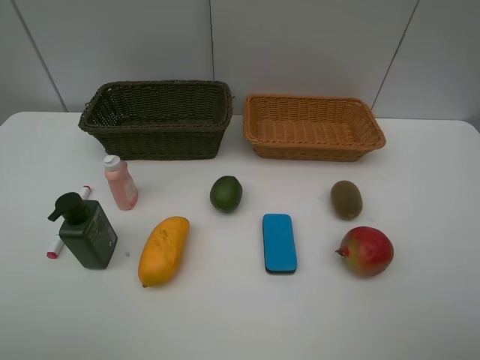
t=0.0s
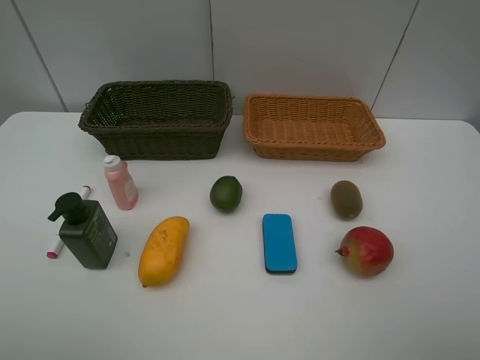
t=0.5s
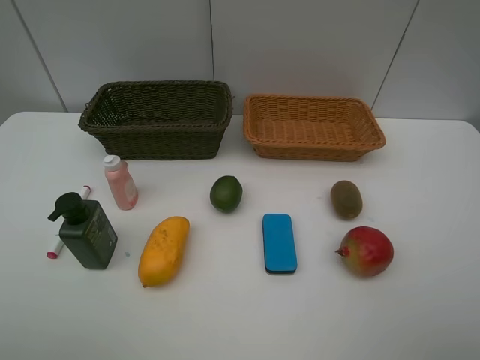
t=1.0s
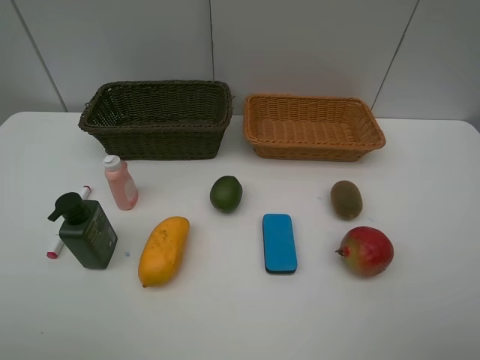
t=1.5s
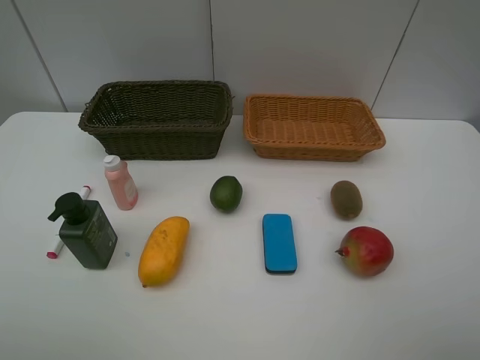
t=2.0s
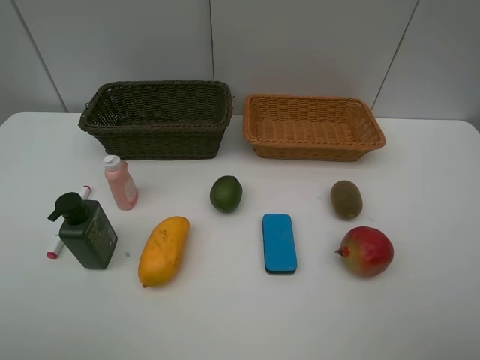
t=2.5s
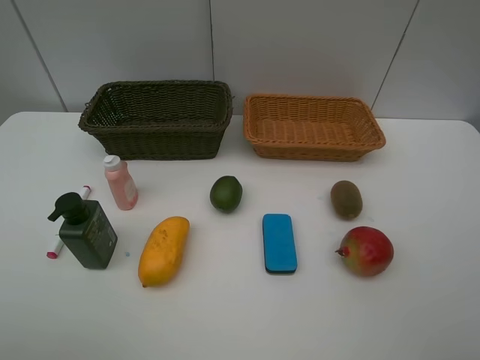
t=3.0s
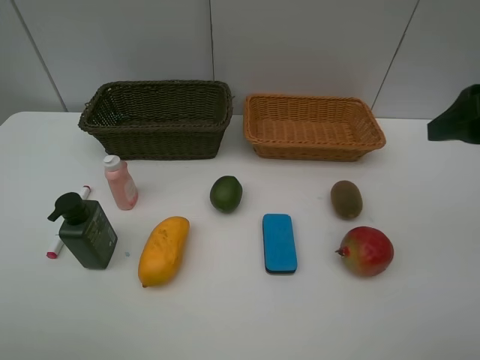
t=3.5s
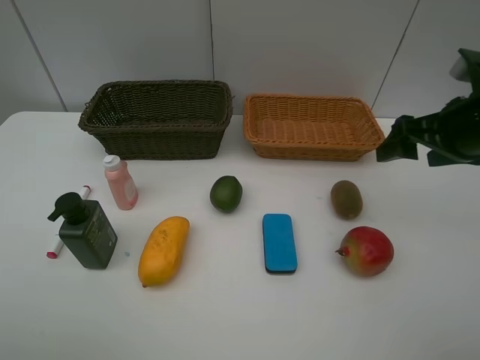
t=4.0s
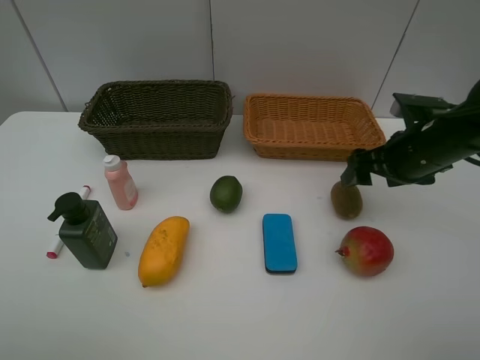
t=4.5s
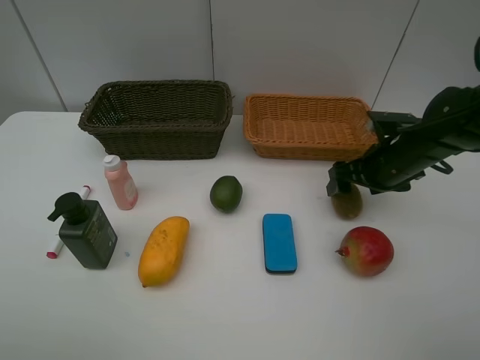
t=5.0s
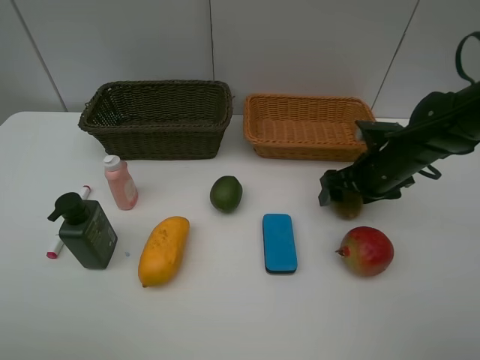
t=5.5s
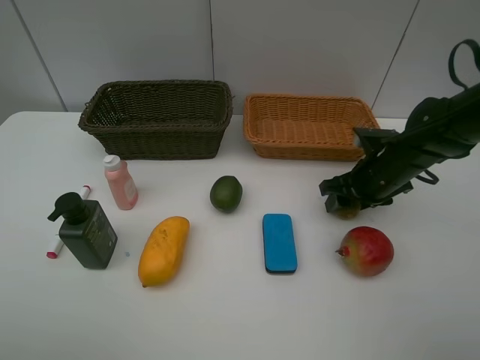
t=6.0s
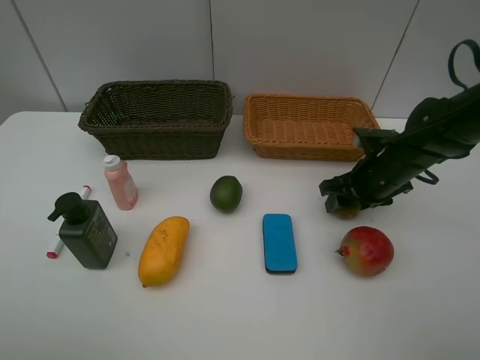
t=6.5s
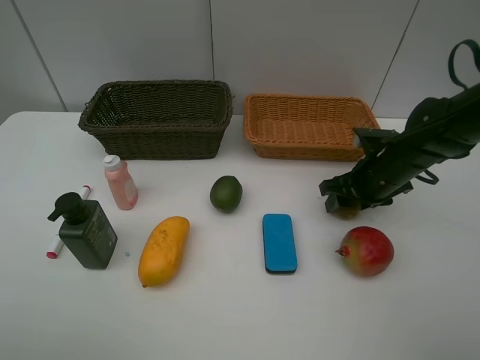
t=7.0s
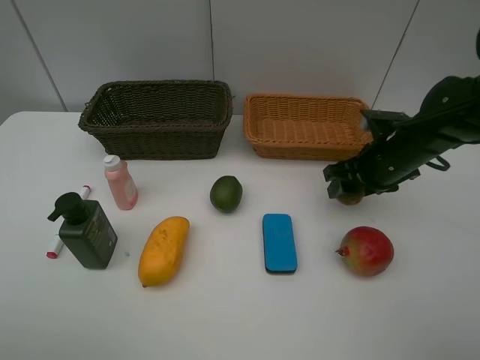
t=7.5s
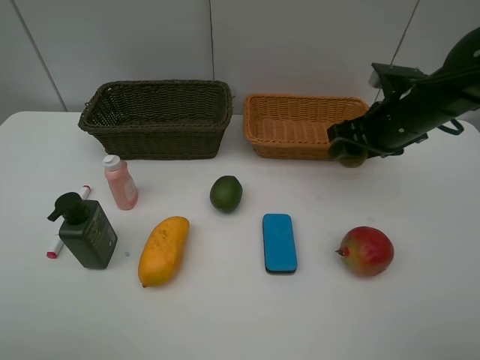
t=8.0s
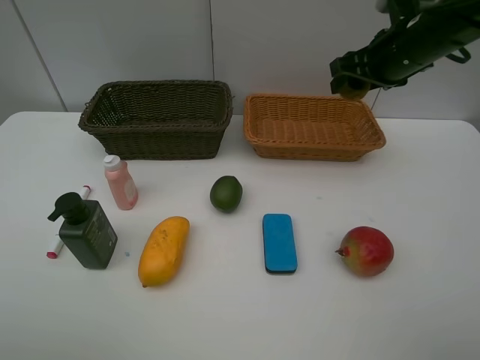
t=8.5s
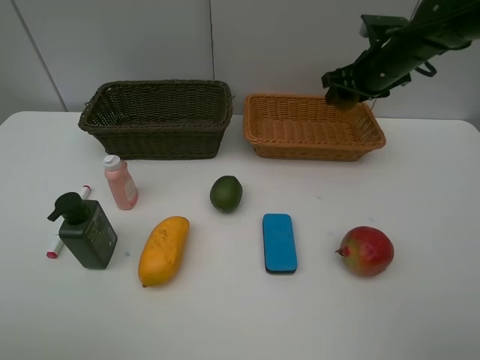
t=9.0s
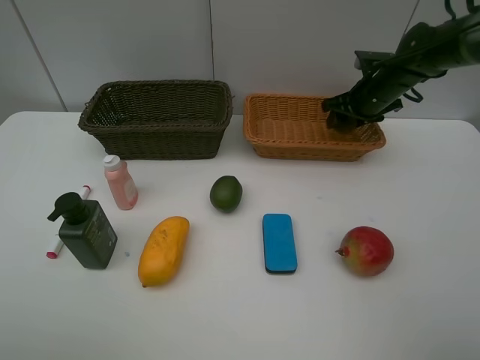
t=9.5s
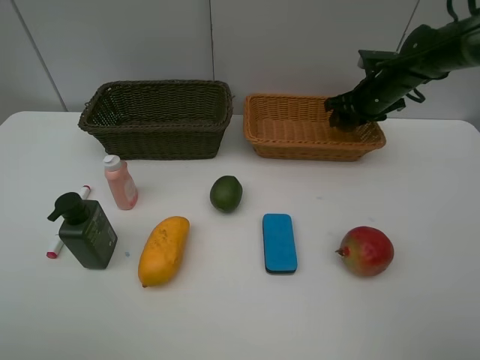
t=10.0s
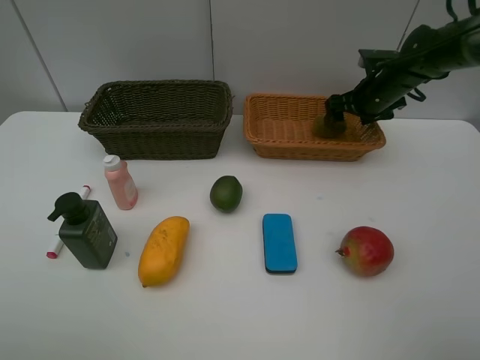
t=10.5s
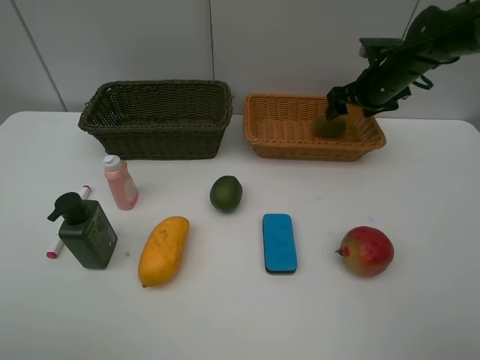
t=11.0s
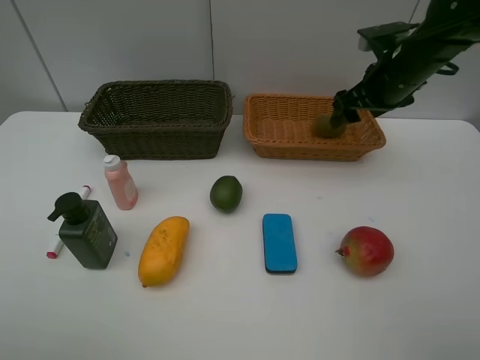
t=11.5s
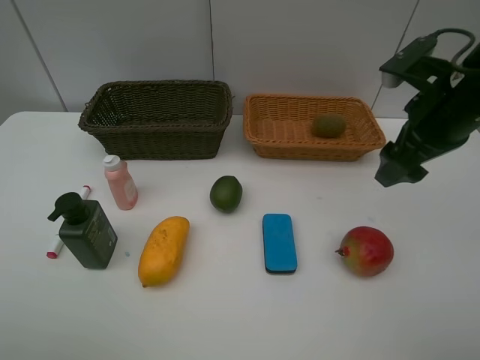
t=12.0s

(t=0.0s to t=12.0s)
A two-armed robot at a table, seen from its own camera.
Task of the whole recording: Place multiple objects separately in different baskets.
Step, t=0.0s - t=7.5s: Pick up kiwi with right gripper.
Step, t=8.0s - t=11.0s: Place the kiwi in the light basket with right gripper.
t=0.0s - t=2.0s: Both grippers stay put.
t=2.0s - t=4.0s: The right gripper shifts approximately 25 cm forward.
t=4.0s - t=6.0s: The right gripper goes roughly 15 cm downward and forward, and closes up.
t=6.0s - t=8.0s: The right gripper heads upward, covering some 10 cm.
t=8.0s - t=10.0s: The right gripper is displaced forward by about 15 cm.
t=10.0s - t=12.0s: The right gripper goes approximately 25 cm backward and upward, and opens up.

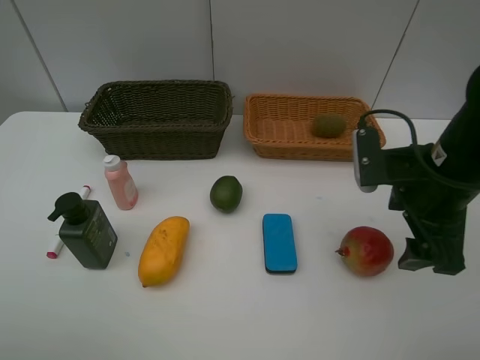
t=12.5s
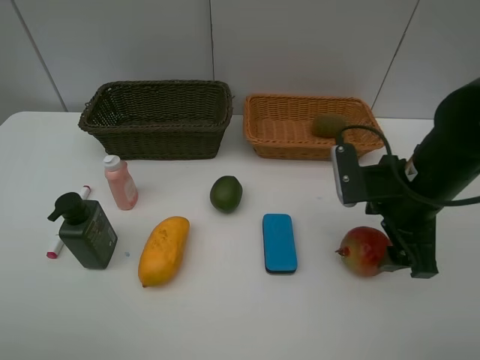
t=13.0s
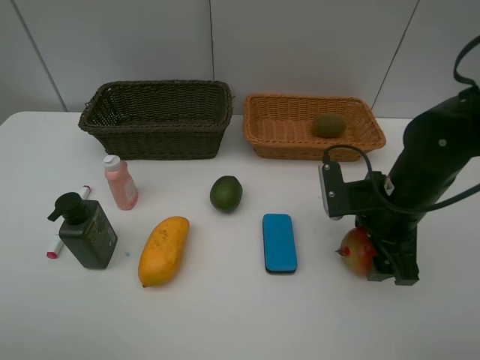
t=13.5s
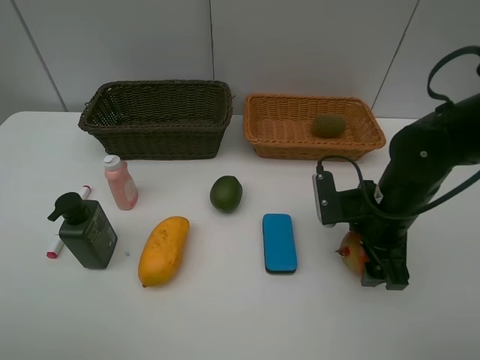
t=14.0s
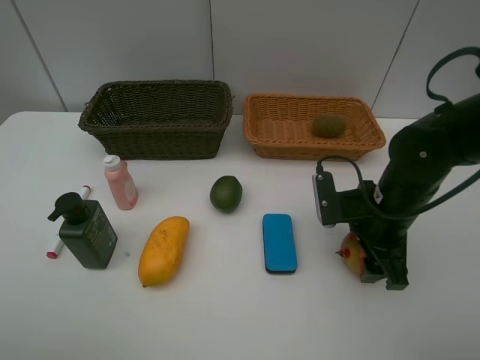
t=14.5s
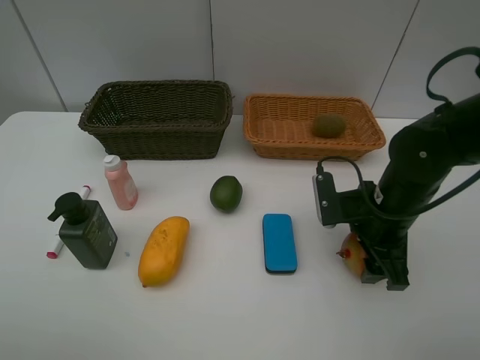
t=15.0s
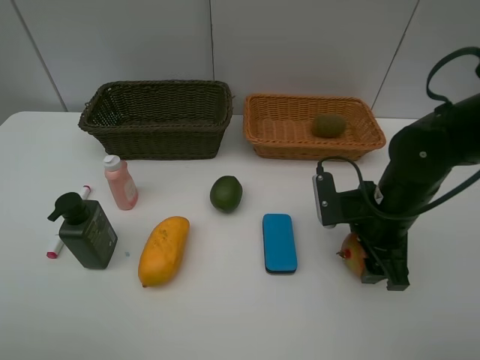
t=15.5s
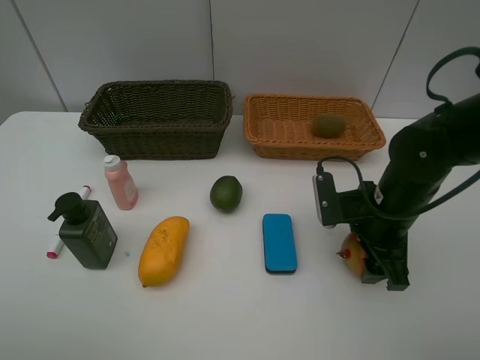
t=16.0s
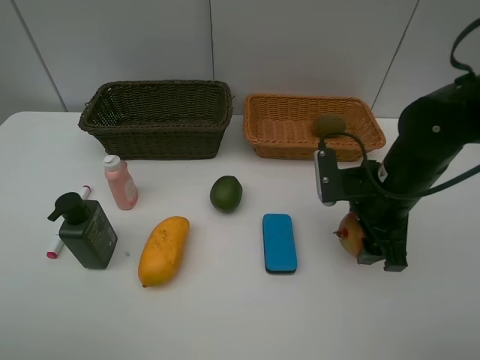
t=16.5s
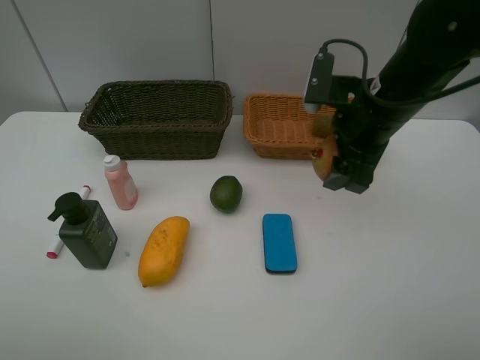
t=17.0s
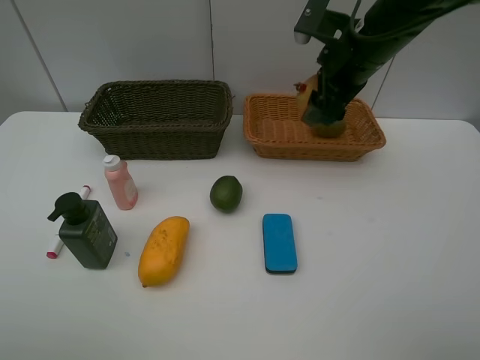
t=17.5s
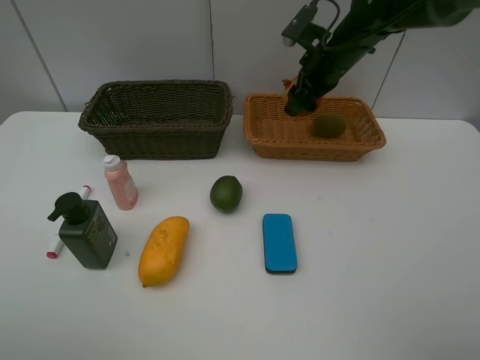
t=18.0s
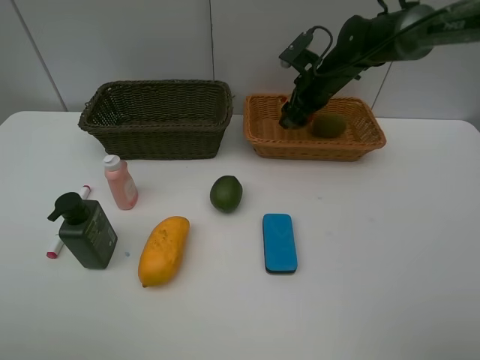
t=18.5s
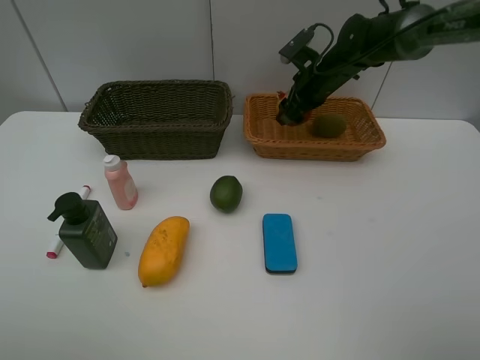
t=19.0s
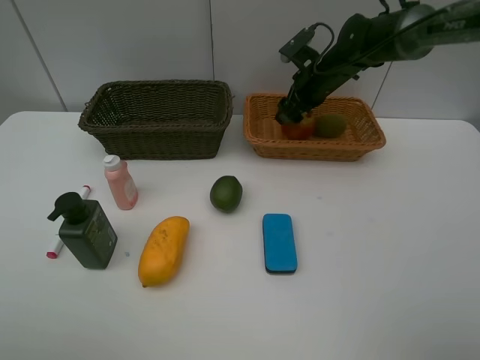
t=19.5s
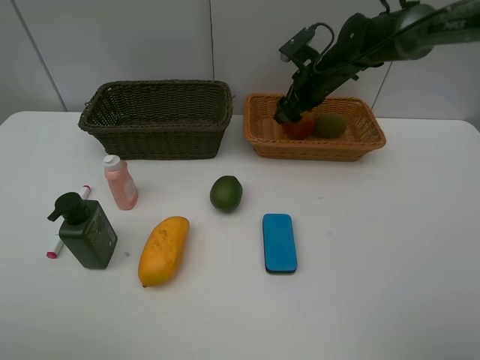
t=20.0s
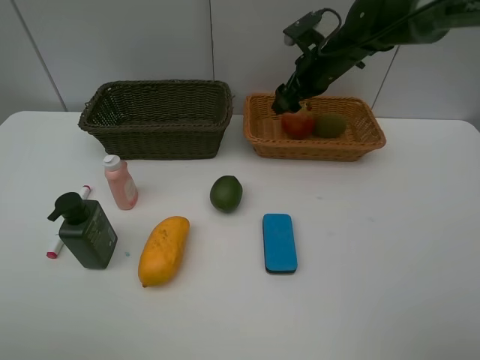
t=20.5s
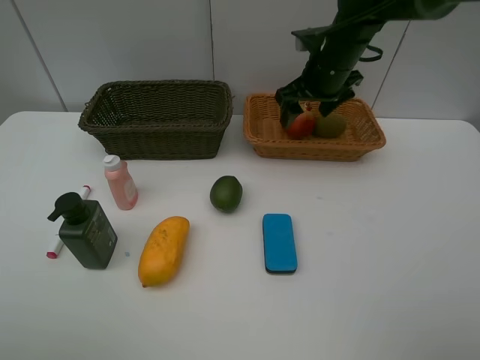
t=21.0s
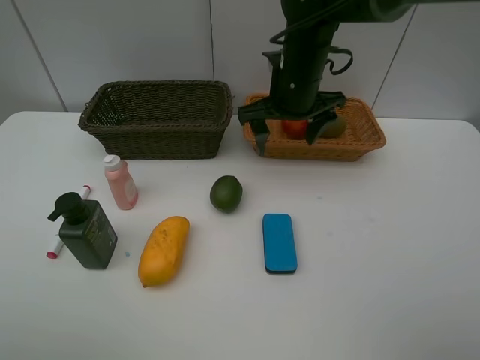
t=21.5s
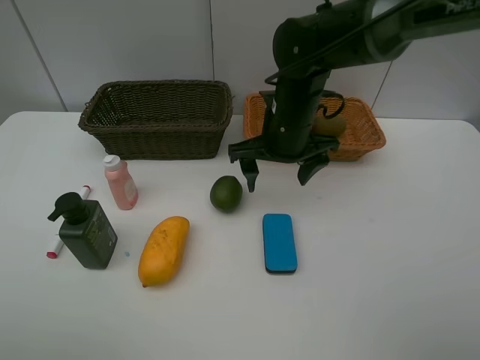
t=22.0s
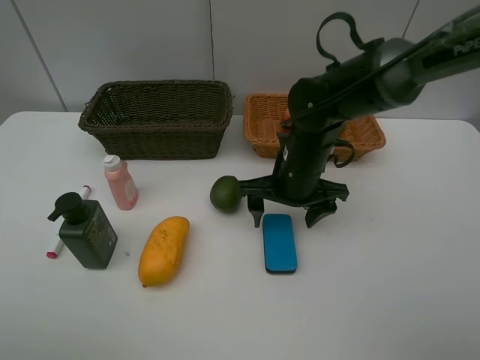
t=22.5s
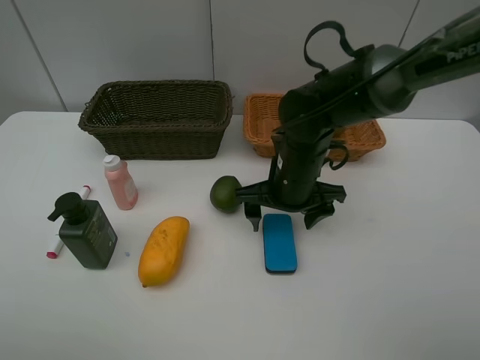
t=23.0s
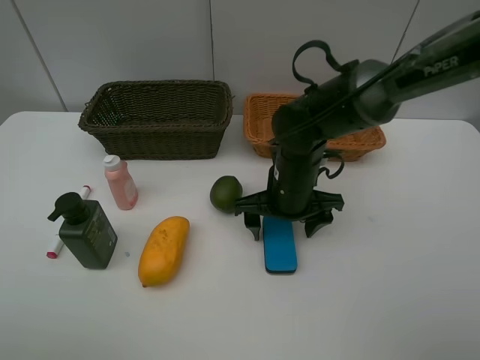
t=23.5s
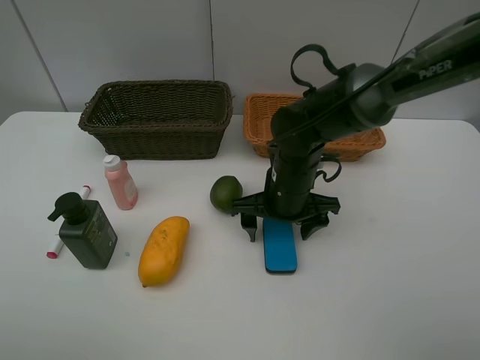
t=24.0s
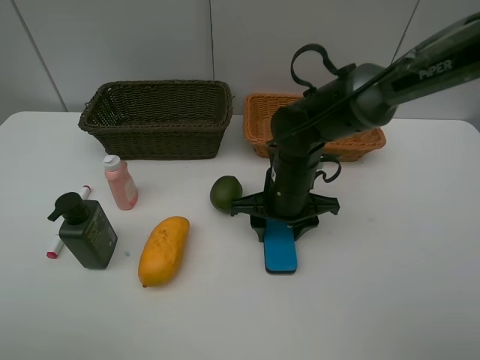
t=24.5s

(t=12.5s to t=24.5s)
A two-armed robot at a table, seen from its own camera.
Task of the whole recording: Place multiple objects separately in different baskets.
Step, t=12.5s - t=16.0s: Pick up the pomegranate with right gripper.
Step, t=16.5s - t=20.0s: Place the pomegranate in the light basket with right gripper.
t=12.5s - t=14.5s: The right gripper heads downward, covering approximately 10 cm, and closes its fingers.
t=14.5s - t=16.5s: The grippers stay close to where they were, moving slightly.
t=16.5s - t=18.5s: The right gripper shifts some 25 cm forward.
t=18.5s - t=20.5s: The right gripper opens its fingers.
t=20.5s - t=22.5s: The right gripper is displaced backward and downward by roughly 20 cm.
t=22.5s - t=24.5s: The right gripper closes.

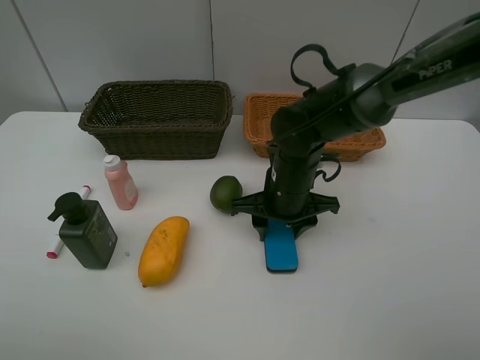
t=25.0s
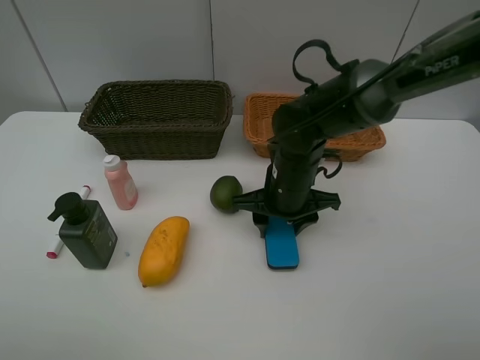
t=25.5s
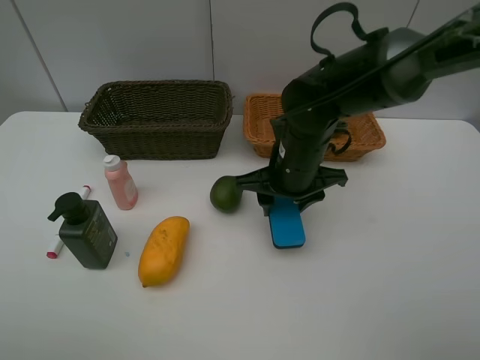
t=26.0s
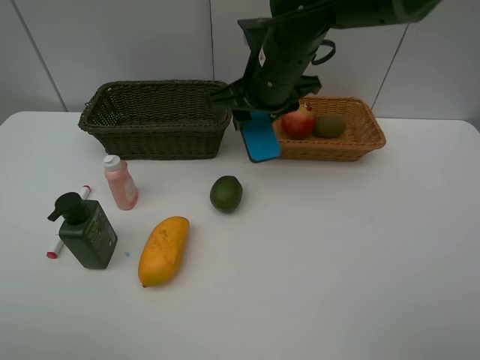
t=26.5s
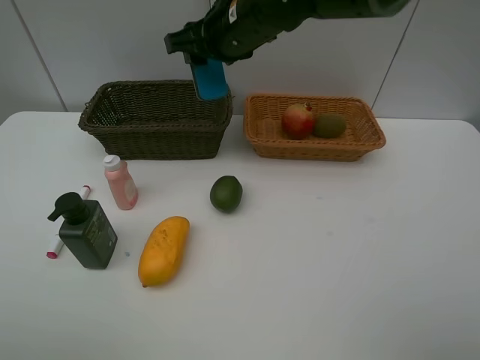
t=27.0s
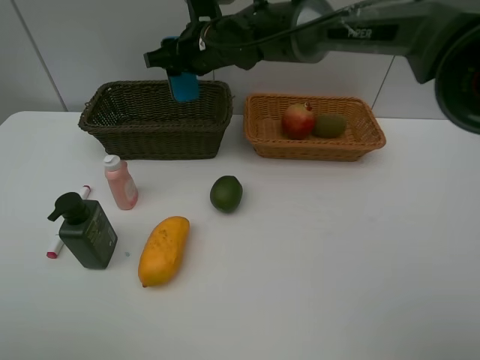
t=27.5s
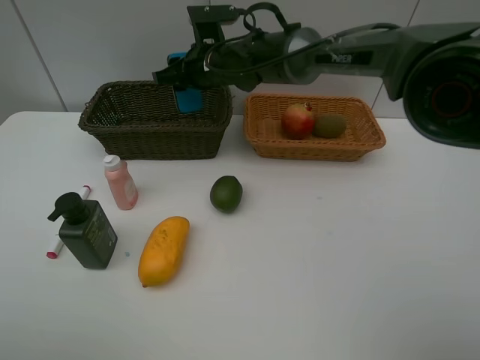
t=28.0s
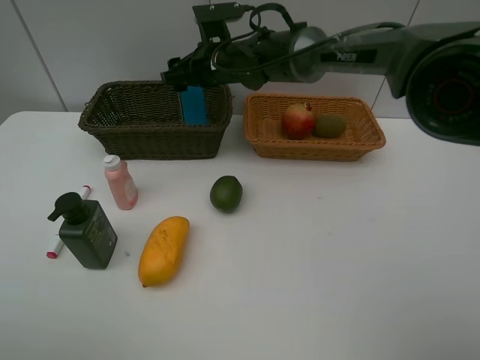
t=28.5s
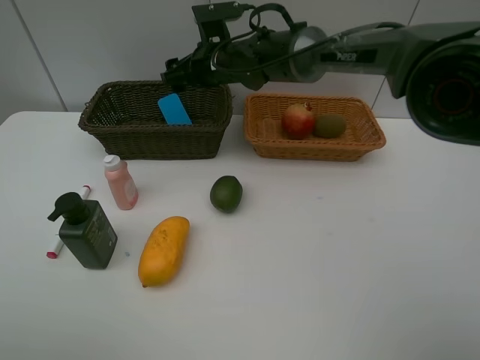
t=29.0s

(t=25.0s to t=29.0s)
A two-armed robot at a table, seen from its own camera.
Task of the whole recording: Place multiple objects separately in different baskets.
t=25.0s - t=27.0s: The right gripper heads upward, forward and to the left, covering roughly 20 cm.
t=27.0s - t=29.0s: The right gripper goes roughly 10 cm downward and forward, and opens its fingers.
